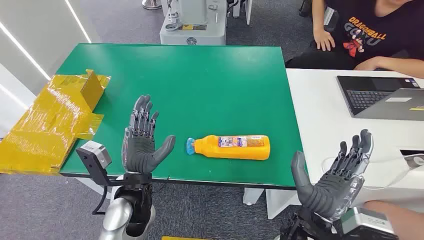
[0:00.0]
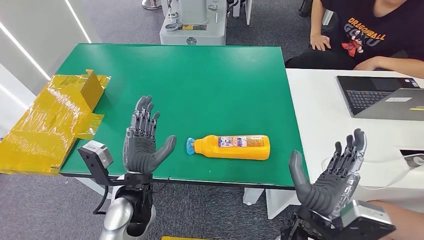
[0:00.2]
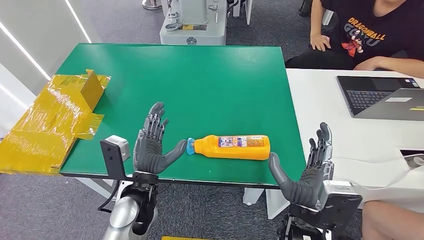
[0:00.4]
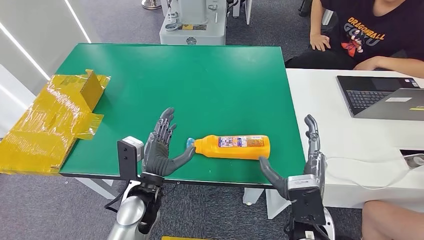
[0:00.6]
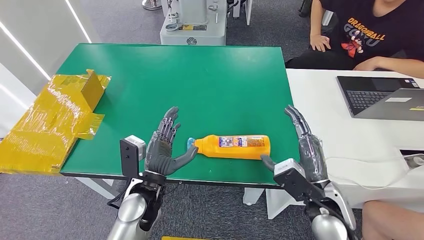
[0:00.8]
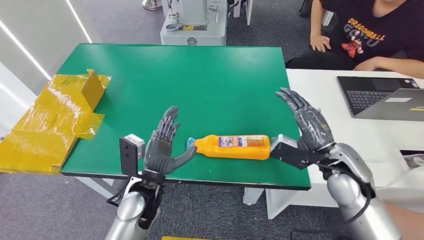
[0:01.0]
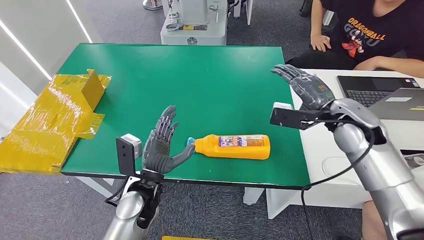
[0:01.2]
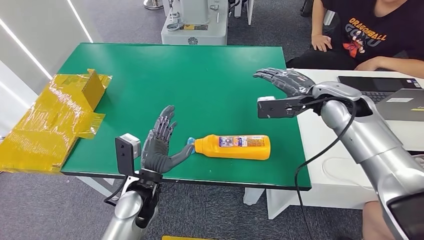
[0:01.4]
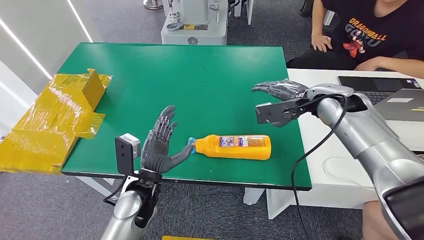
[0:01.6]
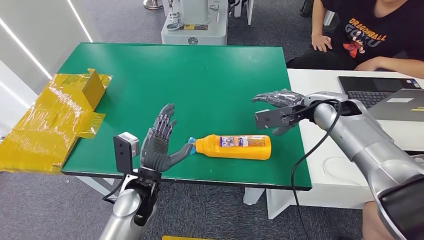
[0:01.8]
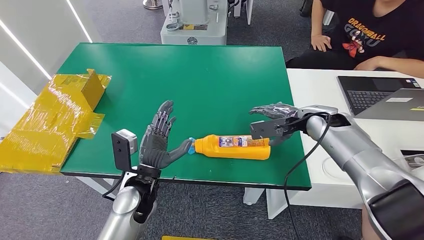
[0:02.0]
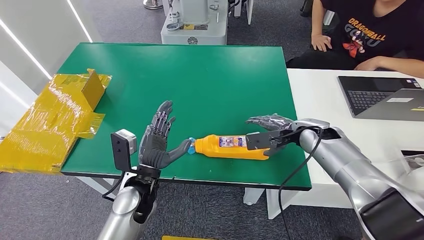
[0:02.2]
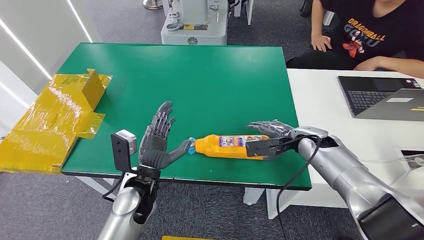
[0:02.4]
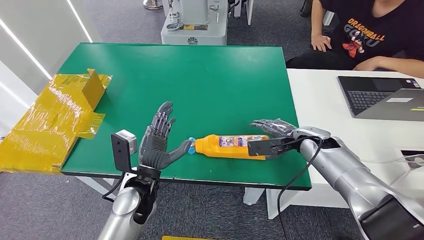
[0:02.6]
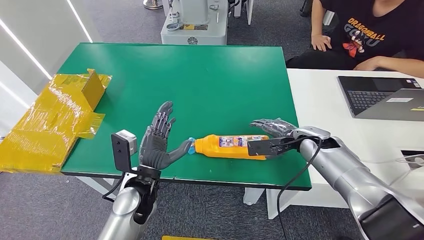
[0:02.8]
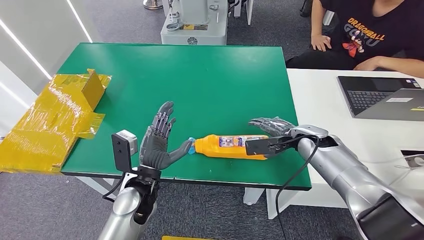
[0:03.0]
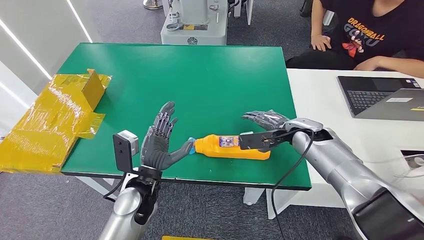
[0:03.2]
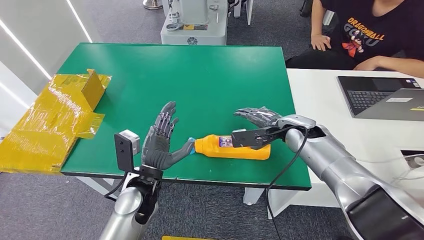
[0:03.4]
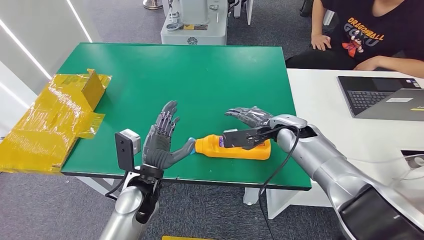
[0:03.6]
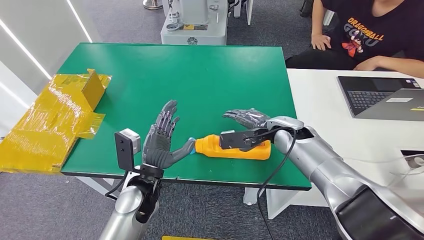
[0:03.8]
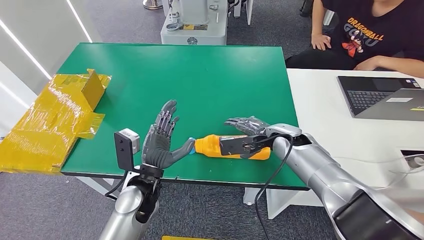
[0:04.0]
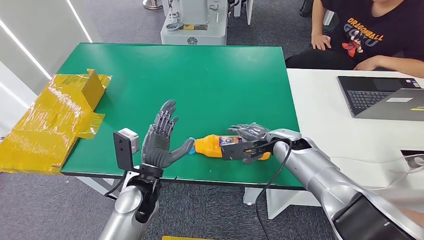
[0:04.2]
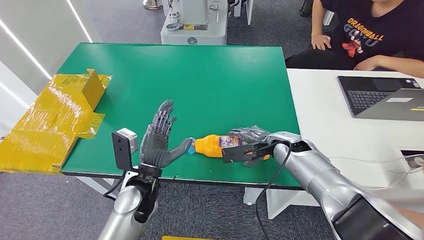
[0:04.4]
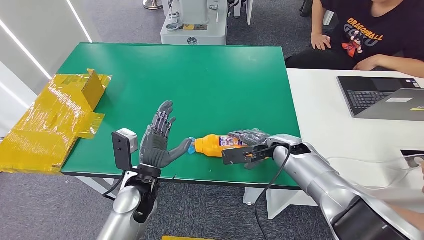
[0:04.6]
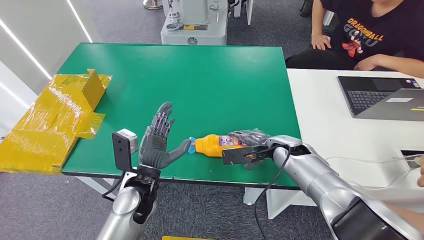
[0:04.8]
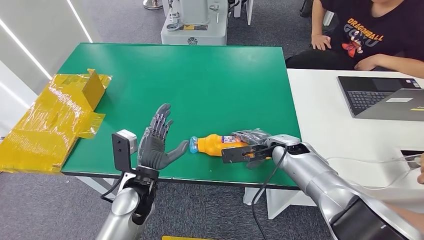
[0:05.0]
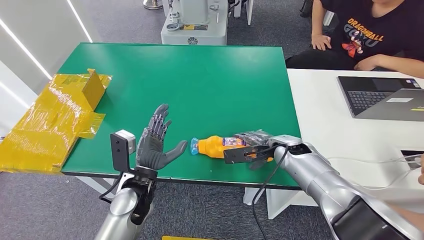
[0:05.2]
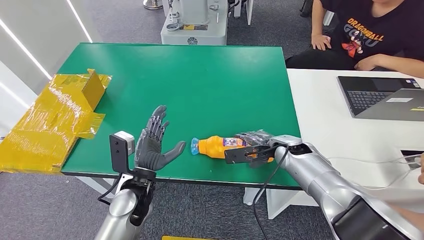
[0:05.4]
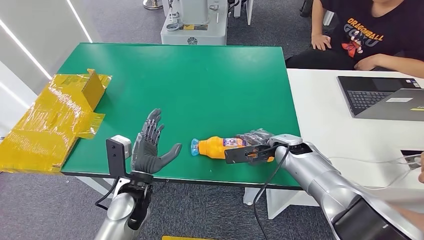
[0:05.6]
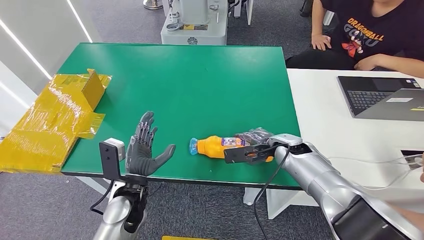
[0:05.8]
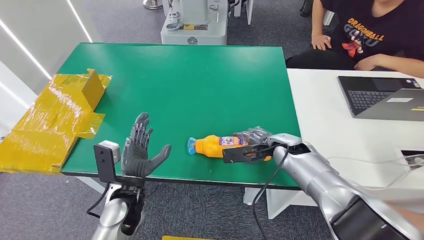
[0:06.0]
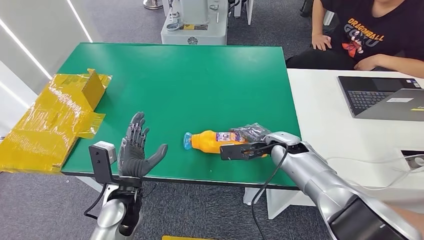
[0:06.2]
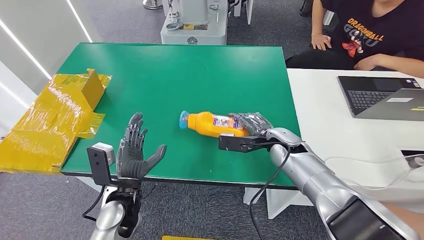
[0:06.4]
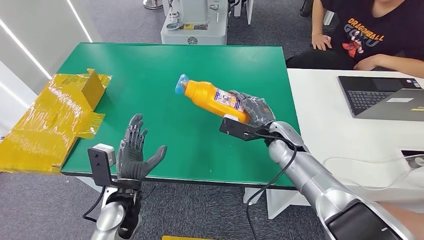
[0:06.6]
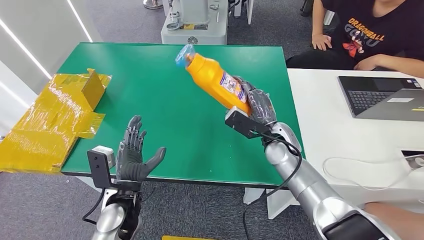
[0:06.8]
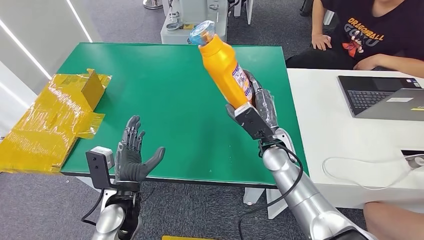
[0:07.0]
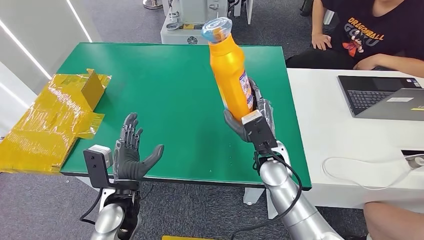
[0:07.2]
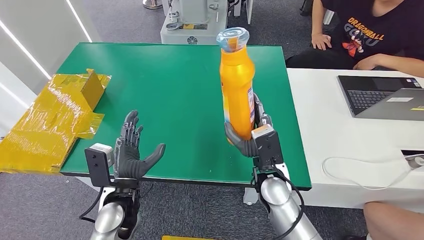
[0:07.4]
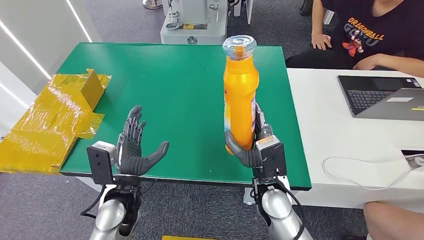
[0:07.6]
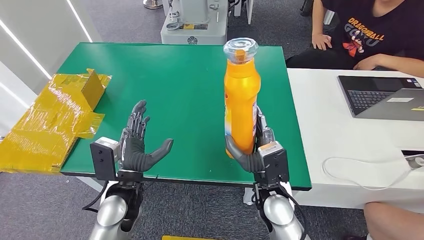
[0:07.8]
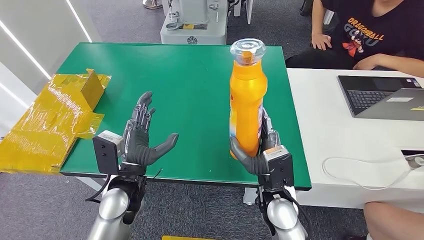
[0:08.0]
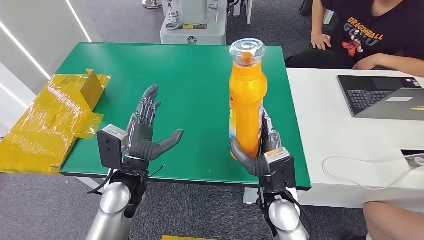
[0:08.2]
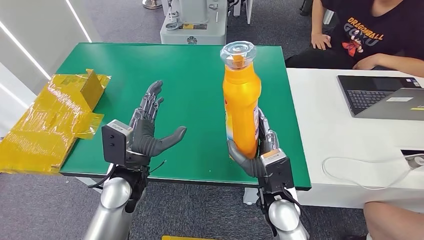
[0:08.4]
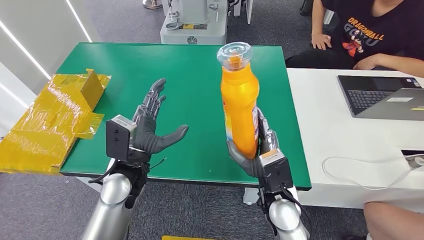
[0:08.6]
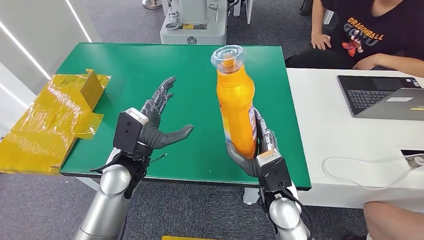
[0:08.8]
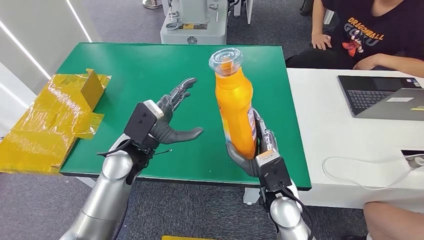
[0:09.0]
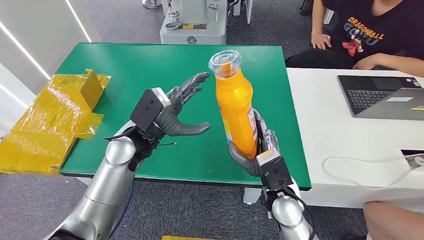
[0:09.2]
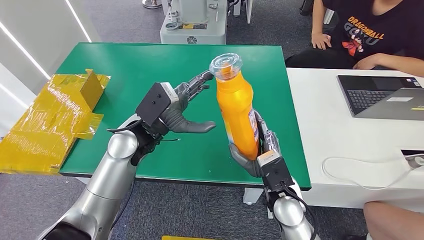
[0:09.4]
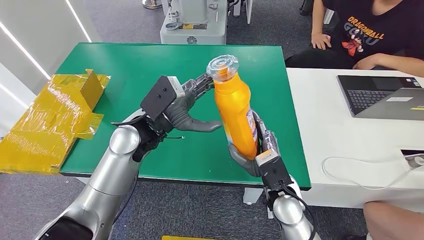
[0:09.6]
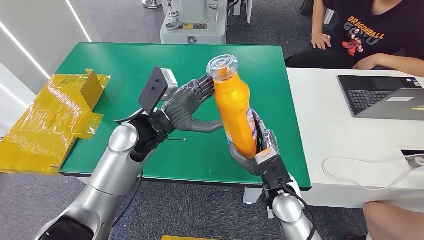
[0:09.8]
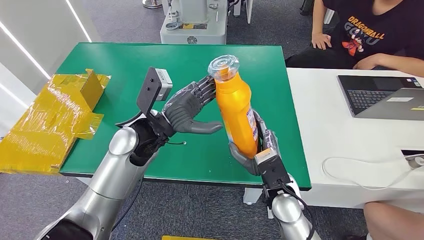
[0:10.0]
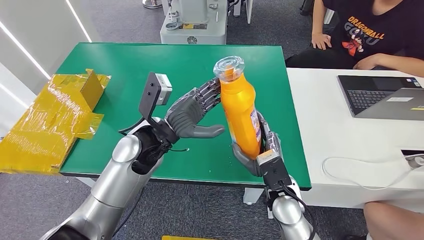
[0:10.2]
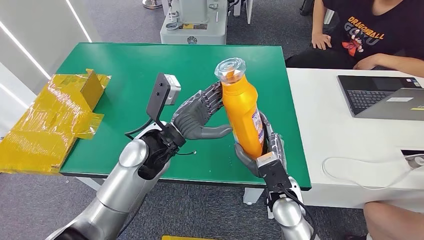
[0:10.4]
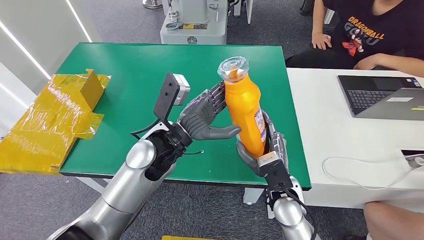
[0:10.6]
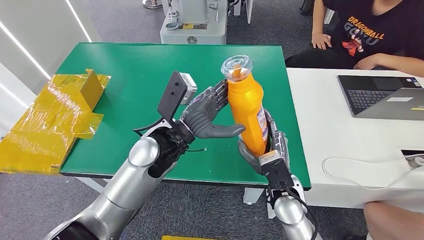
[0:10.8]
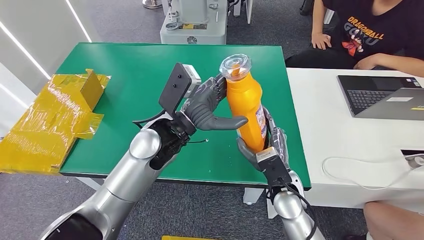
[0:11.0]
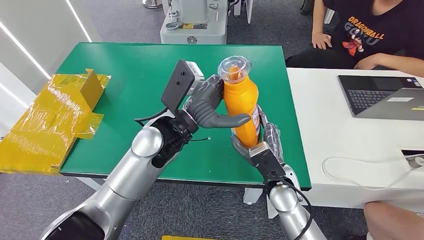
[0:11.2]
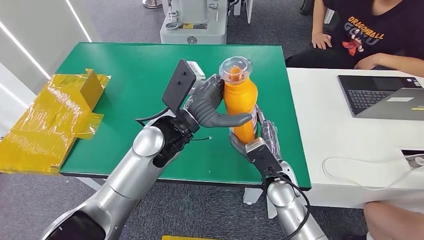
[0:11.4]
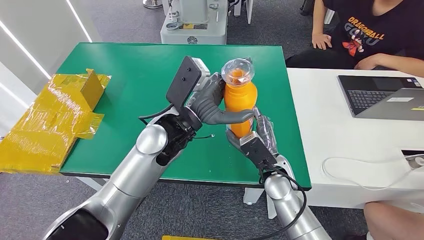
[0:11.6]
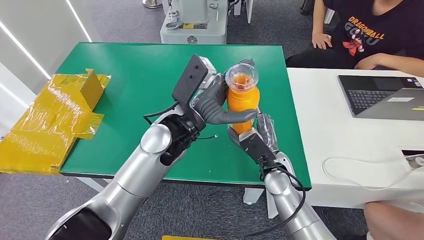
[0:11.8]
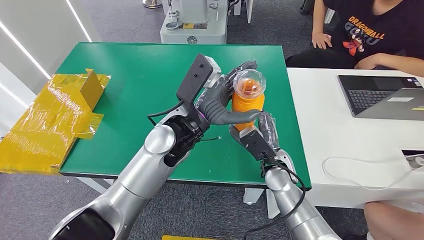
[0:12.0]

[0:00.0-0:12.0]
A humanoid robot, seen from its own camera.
Step, 0:00.0 to 0:06.8: Pick up the bottle from the table.
0:01.6 to 0:03.0: The right hand heads downward, covering about 10 cm.
0:03.0 to 0:04.4: The right hand moves to the left, some 5 cm.
0:04.4 to 0:06.0: The left hand changes place by approximately 5 cm.
0:06.0 to 0:07.6: The right hand shifts some 15 cm backward and to the left.
0:07.6 to 0:09.0: The left hand shifts about 10 cm forward and upward.
0:09.0 to 0:10.4: The left hand goes some 5 cm to the right.
0:10.4 to 0:12.0: The left hand is displaced to the right by about 5 cm; the right hand is displaced forward by some 5 cm.

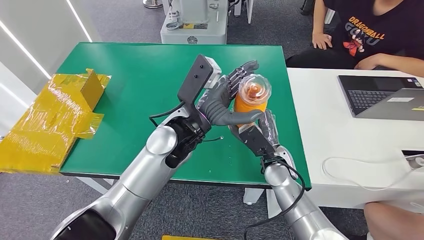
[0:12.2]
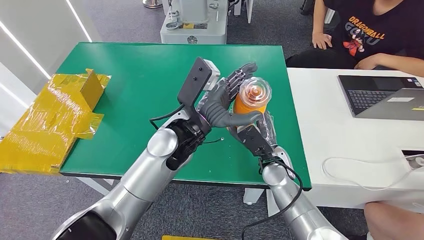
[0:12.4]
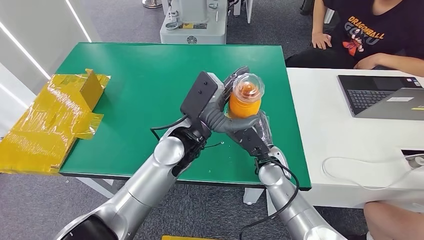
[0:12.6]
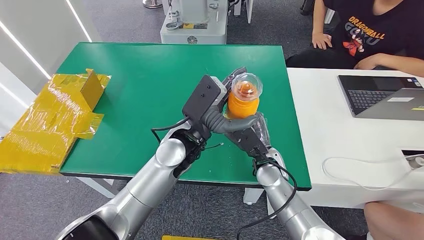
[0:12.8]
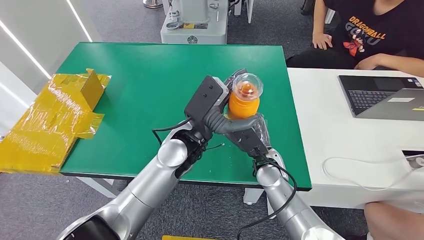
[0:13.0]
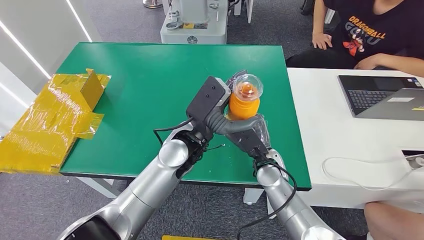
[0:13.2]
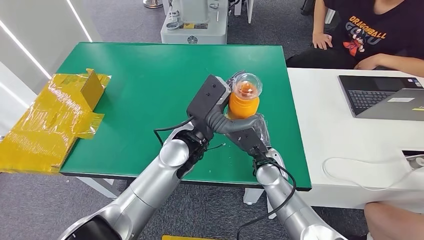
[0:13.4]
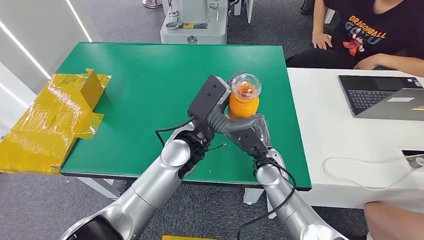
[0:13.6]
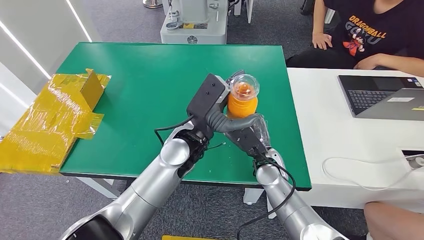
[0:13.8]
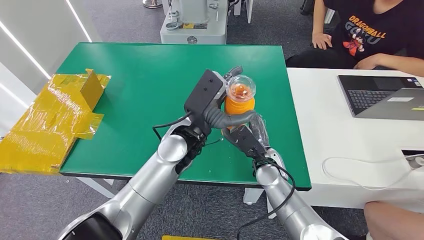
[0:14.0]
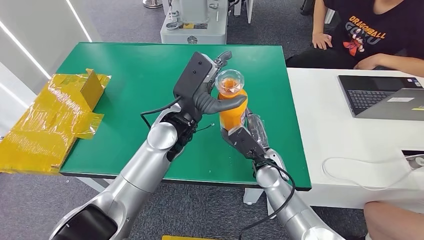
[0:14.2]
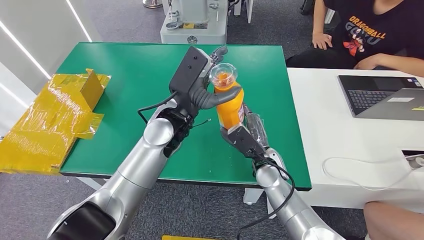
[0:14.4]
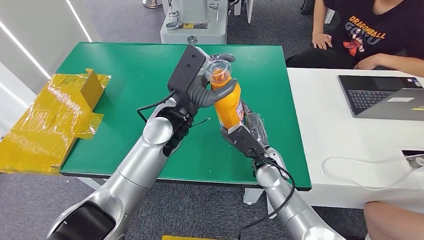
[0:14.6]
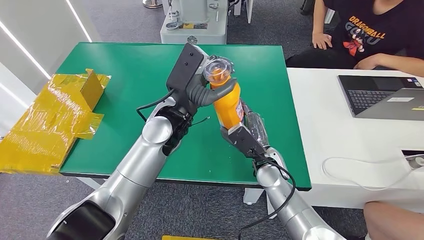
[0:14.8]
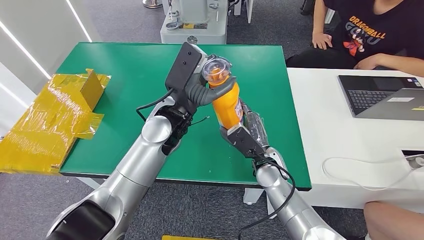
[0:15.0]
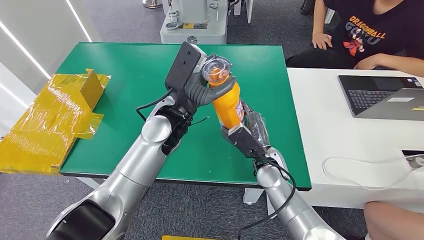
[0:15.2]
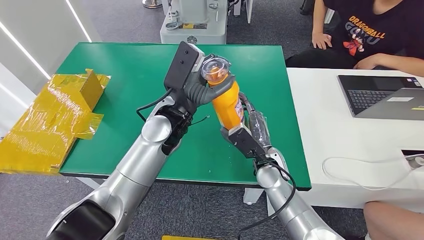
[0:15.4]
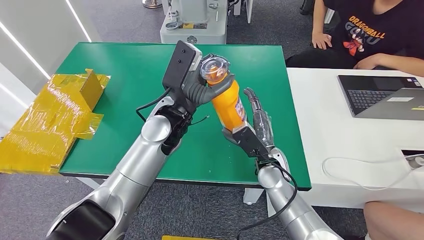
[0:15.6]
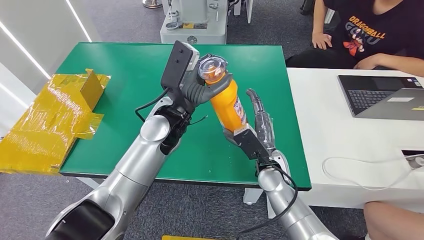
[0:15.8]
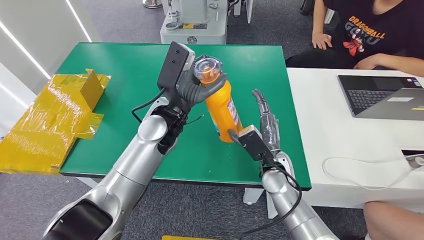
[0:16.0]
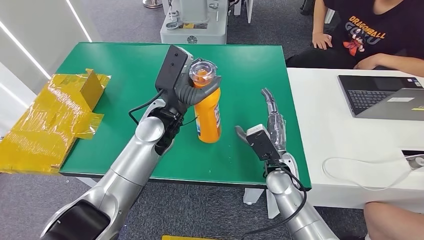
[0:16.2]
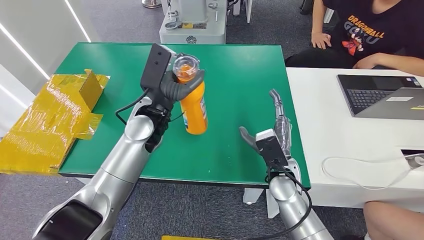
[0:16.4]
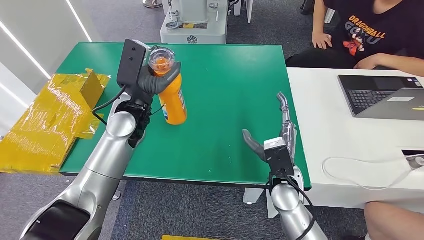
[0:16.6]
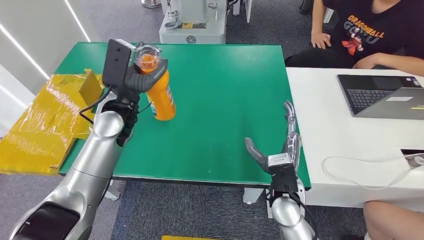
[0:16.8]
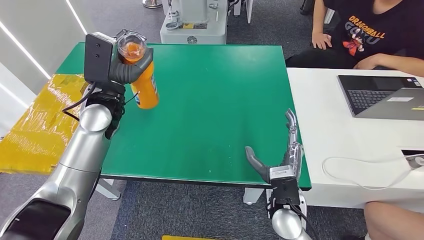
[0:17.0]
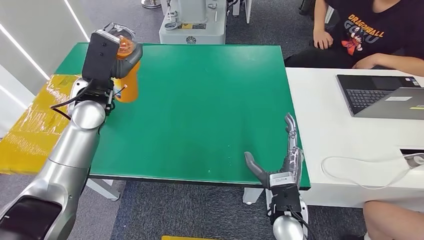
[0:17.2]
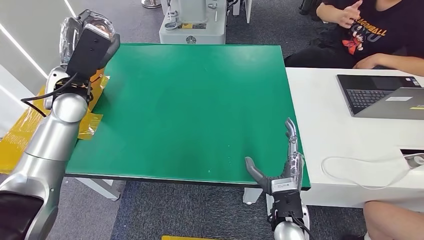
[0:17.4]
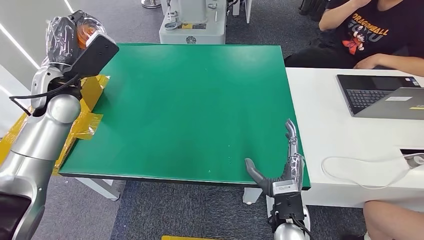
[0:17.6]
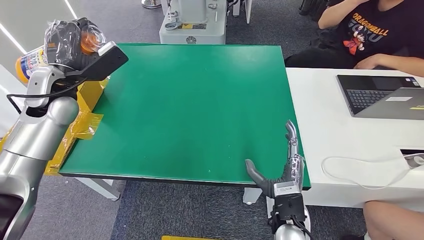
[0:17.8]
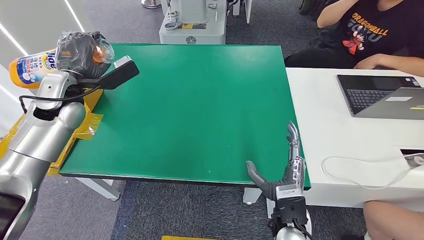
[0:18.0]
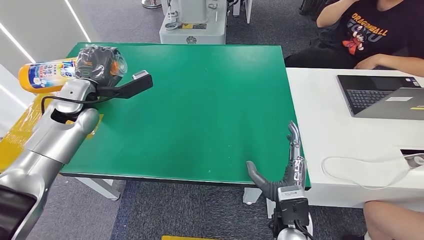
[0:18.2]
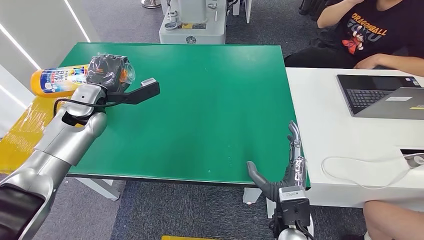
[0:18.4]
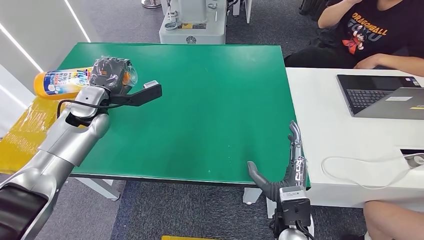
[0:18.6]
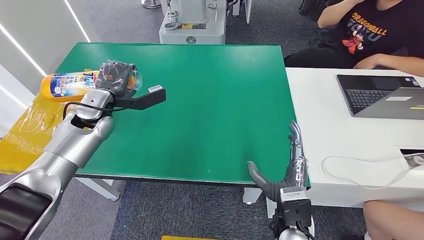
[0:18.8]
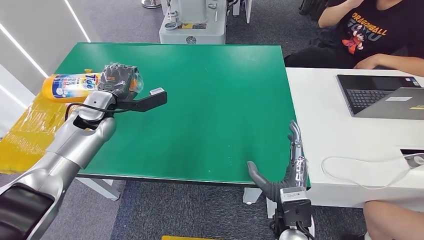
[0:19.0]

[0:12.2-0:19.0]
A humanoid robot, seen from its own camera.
0:12.2 to 0:13.6: The hands move only a little.
0:13.6 to 0:15.0: The left hand ends up approximately 5 cm from where it was.
0:15.0 to 0:16.2: The hands make only small movements.
0:17.6 to 0:19.0: The left hand shifts some 10 cm downward.
